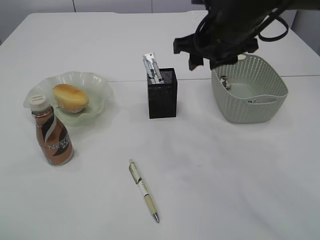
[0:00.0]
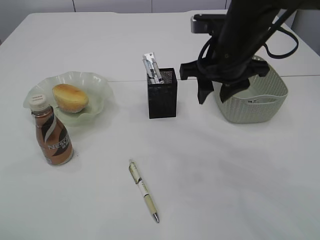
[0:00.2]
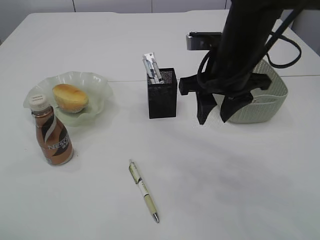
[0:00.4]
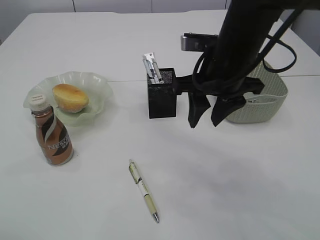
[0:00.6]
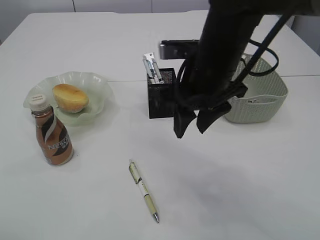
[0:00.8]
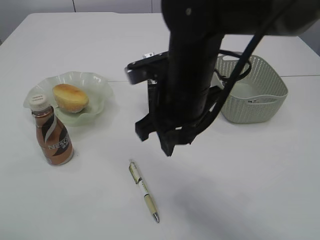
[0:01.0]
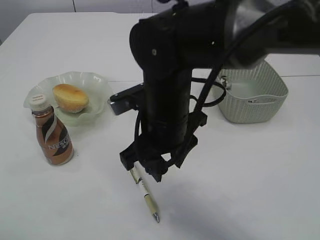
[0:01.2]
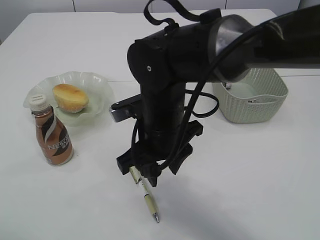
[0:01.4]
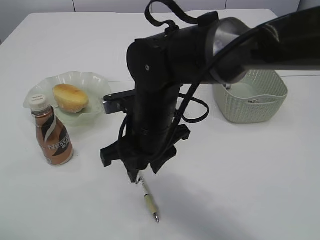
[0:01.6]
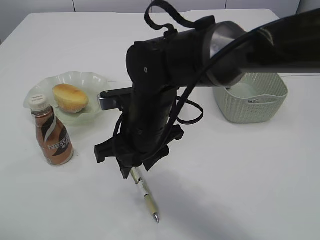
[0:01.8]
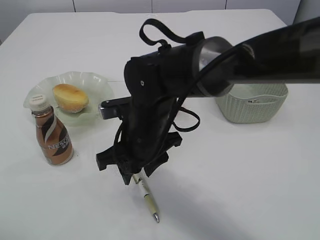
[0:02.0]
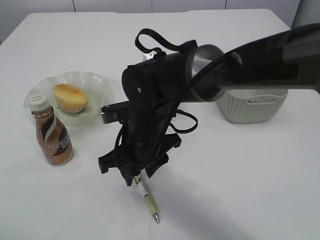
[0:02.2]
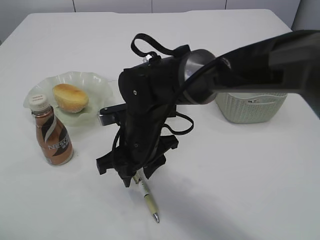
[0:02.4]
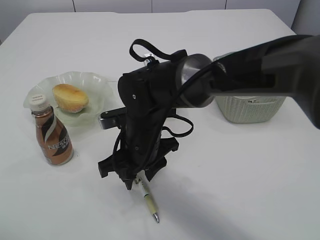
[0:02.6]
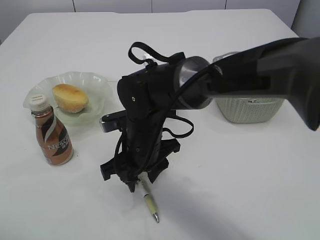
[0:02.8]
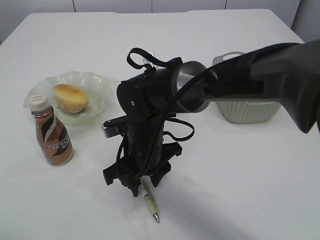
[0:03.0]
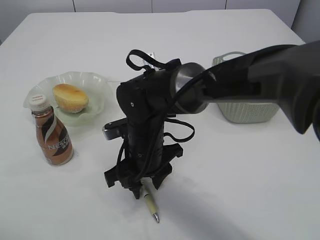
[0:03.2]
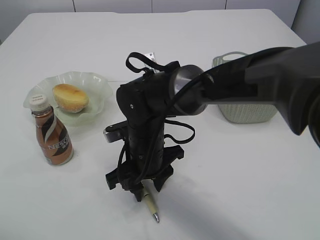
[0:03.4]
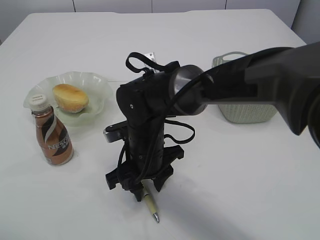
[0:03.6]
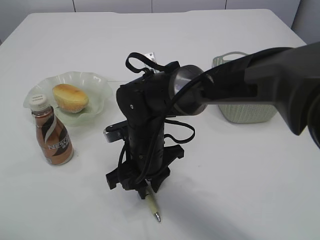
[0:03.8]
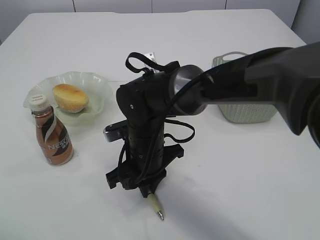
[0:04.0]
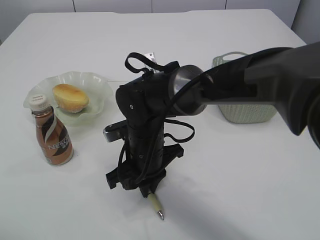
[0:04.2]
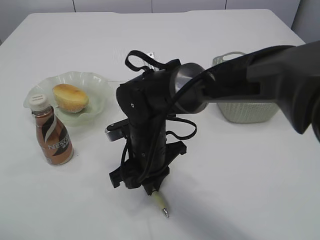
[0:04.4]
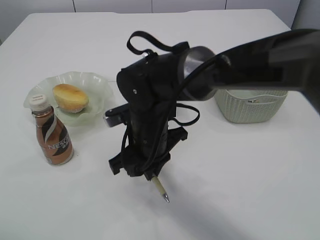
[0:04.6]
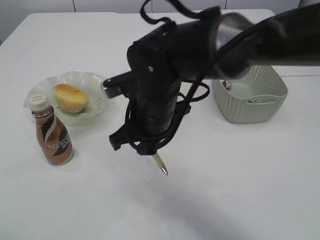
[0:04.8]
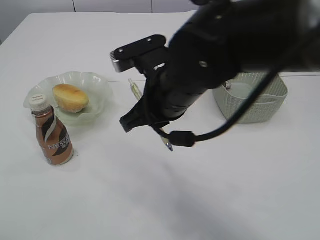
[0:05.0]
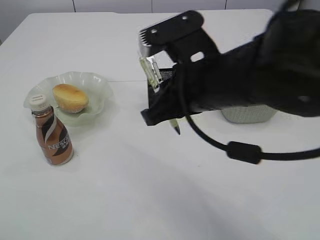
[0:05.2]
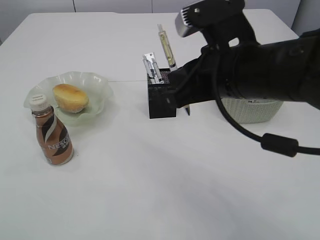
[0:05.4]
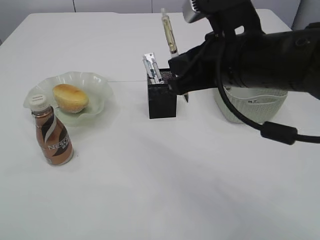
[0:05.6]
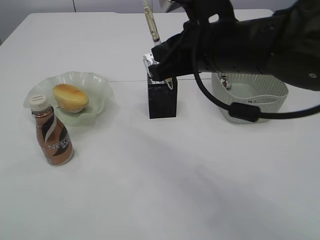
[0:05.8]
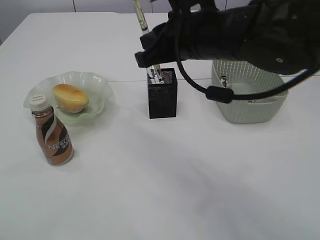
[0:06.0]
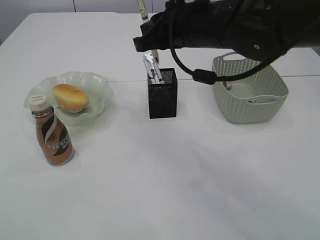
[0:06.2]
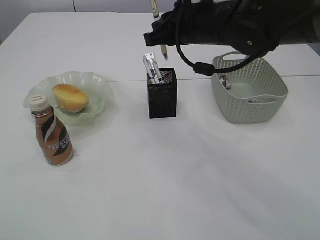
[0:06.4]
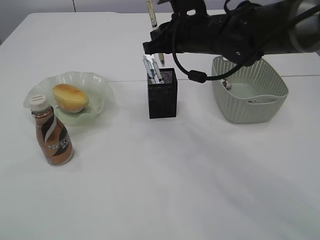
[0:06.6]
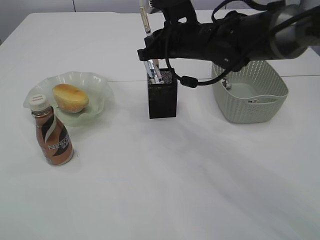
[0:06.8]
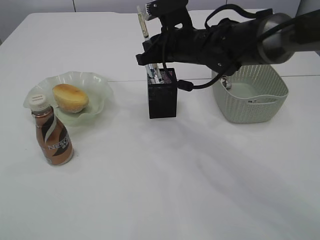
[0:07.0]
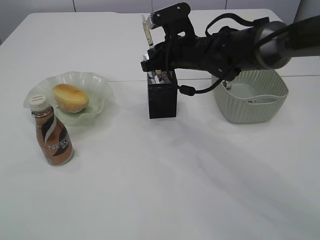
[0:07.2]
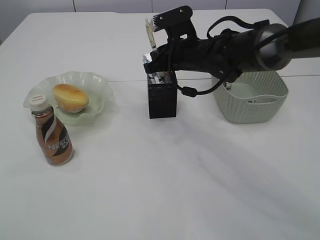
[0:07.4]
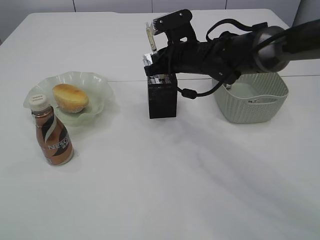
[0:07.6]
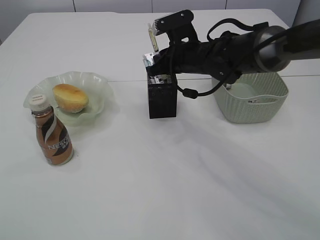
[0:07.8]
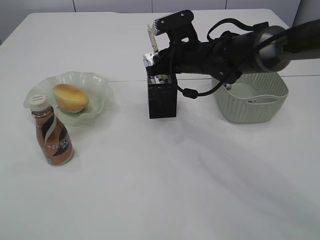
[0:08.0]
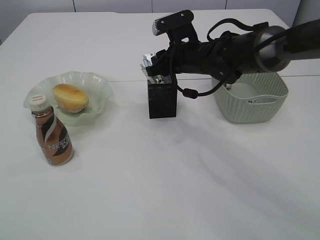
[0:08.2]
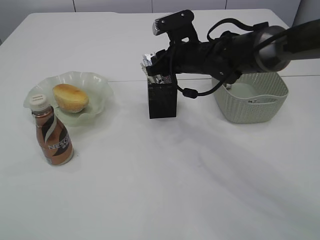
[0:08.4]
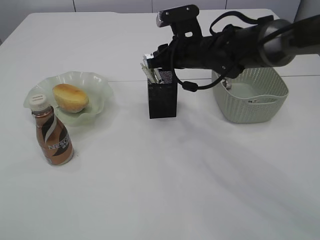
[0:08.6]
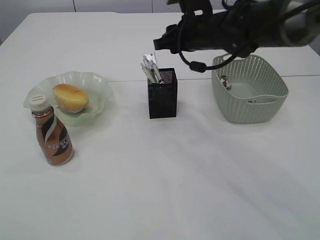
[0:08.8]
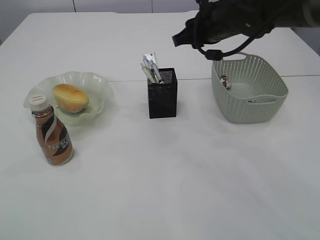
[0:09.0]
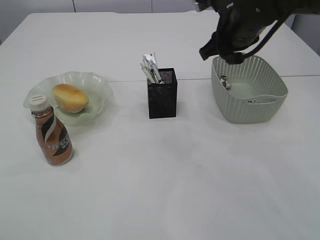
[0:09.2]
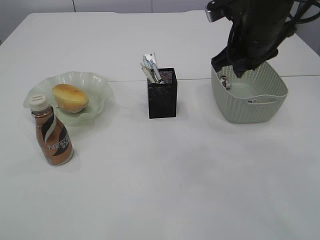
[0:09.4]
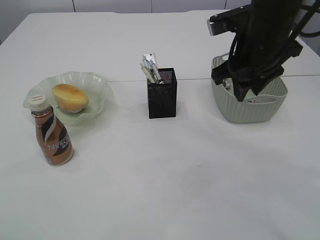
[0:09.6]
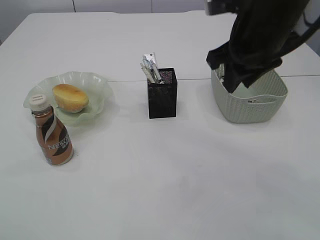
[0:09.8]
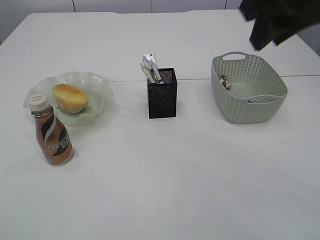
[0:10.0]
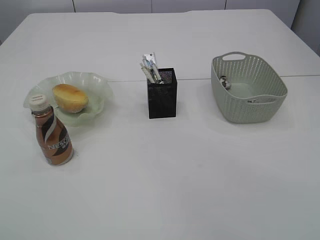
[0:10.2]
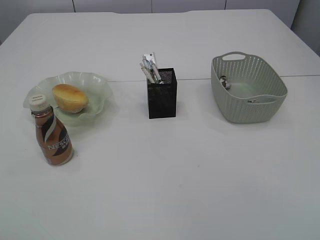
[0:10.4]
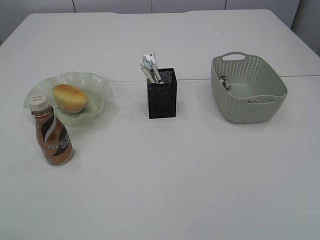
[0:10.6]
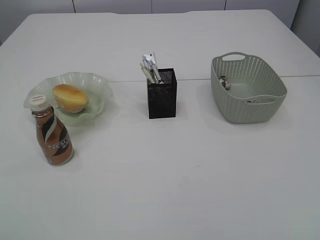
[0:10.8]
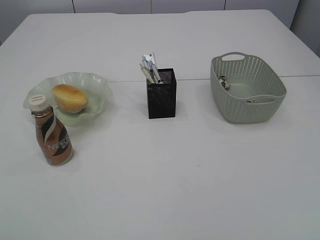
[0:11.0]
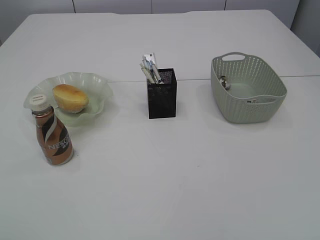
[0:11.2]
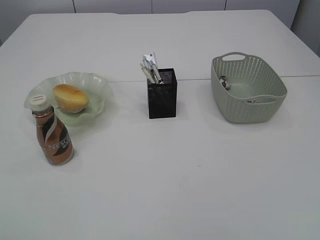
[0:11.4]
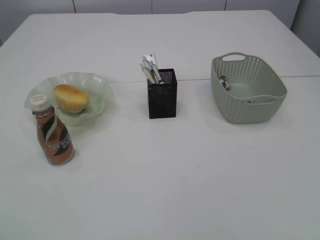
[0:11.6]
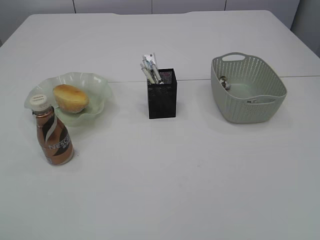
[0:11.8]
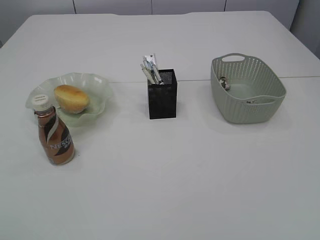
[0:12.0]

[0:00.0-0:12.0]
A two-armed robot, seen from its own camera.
Step, 0:00.0 to 0:05.0: Pick up the pen with right arm.
Step, 0:05.2 to 0:09.0: Place the pen into the pen holder.
0:00.0 to 0:01.6: The right gripper moves to the left, backward and downward, roughly 20 cm.
0:01.6 to 0:03.0: The right gripper travels downward by about 5 cm.
0:03.0 to 0:04.4: The right gripper closes its fingers.
0:04.4 to 0:06.0: The right gripper travels upward and to the right by roughly 20 cm.
0:06.0 to 0:07.6: The right gripper goes roughly 15 cm forward and downward.
0:07.6 to 0:09.0: The right gripper heads upward, covering roughly 10 cm, and opens up.
0:09.0 to 0:10.4: The right gripper heads backward and upward, covering some 40 cm.
0:10.4 to 0:12.0: The right gripper is displaced backward, downward and to the right by approximately 30 cm; the left gripper is displaced backward by roughly 25 cm.
